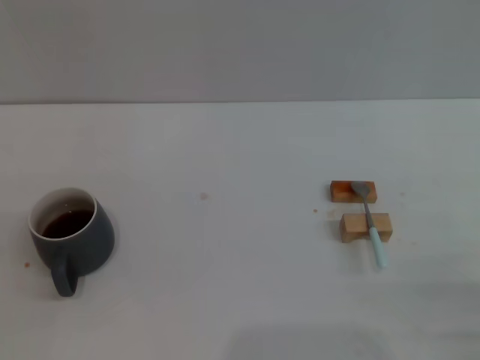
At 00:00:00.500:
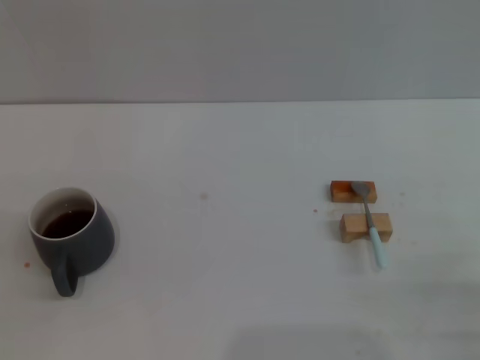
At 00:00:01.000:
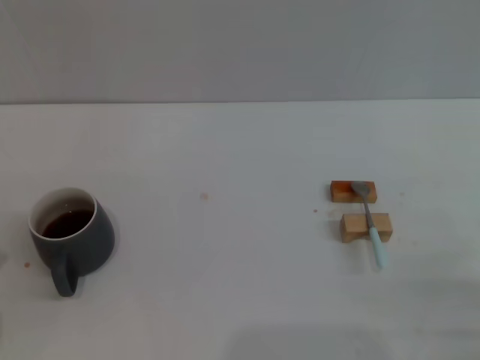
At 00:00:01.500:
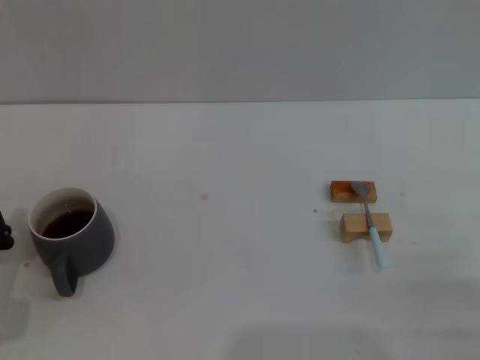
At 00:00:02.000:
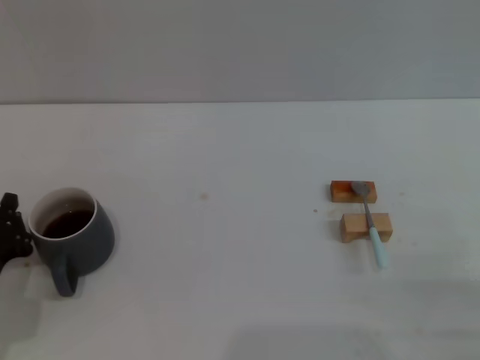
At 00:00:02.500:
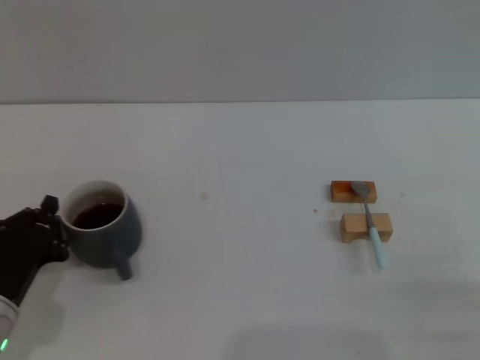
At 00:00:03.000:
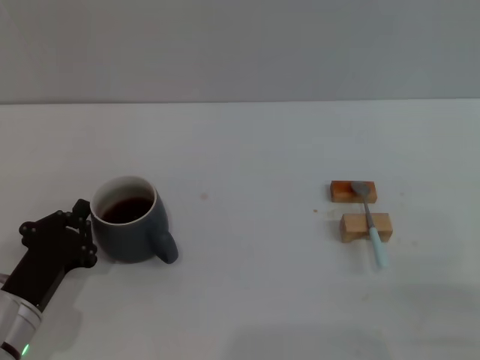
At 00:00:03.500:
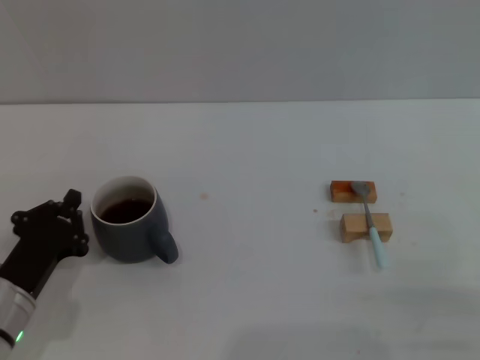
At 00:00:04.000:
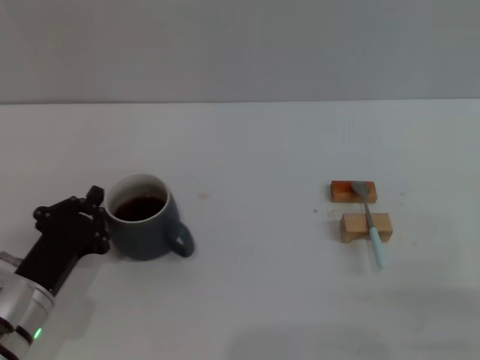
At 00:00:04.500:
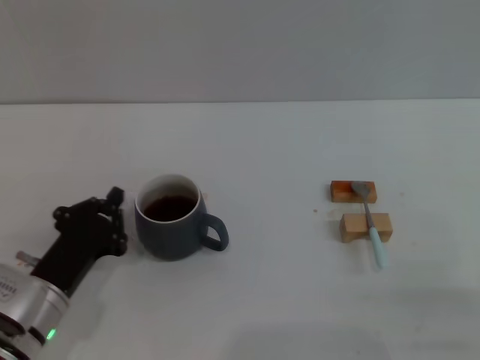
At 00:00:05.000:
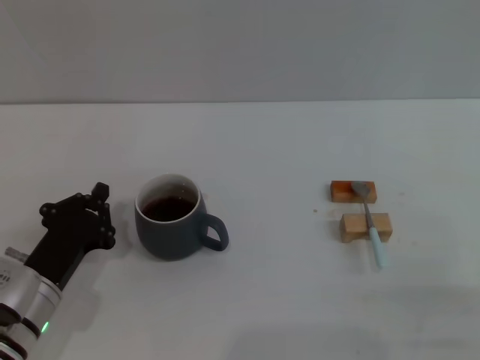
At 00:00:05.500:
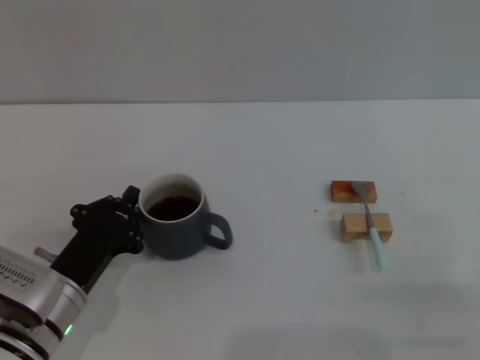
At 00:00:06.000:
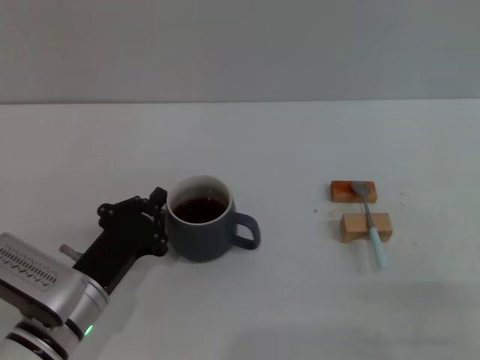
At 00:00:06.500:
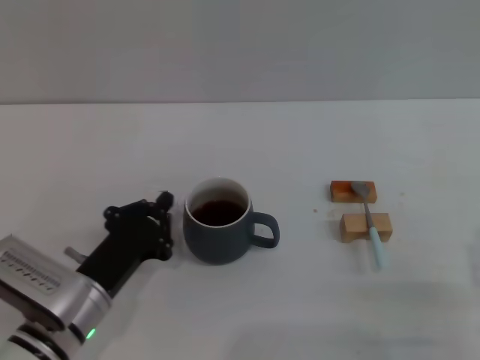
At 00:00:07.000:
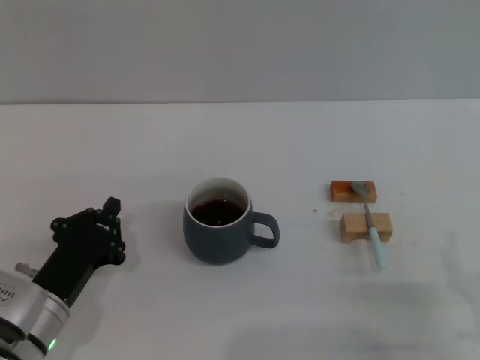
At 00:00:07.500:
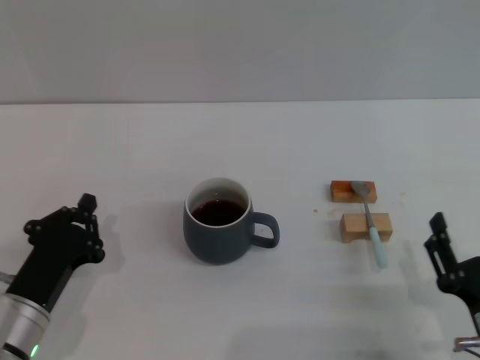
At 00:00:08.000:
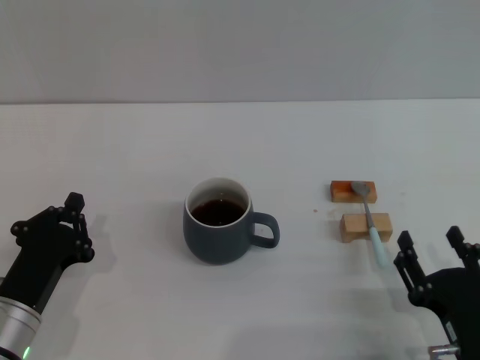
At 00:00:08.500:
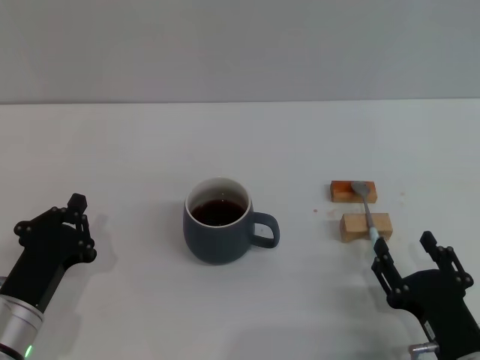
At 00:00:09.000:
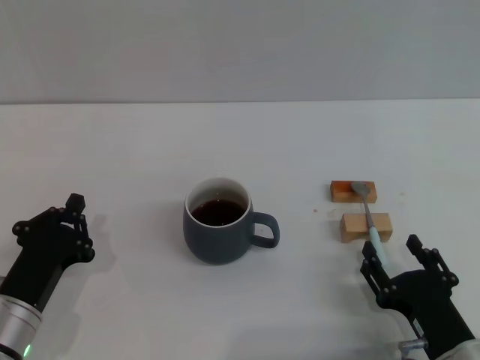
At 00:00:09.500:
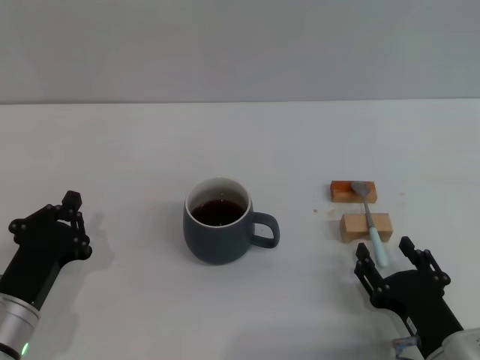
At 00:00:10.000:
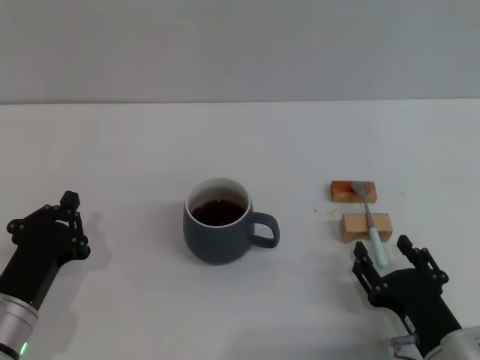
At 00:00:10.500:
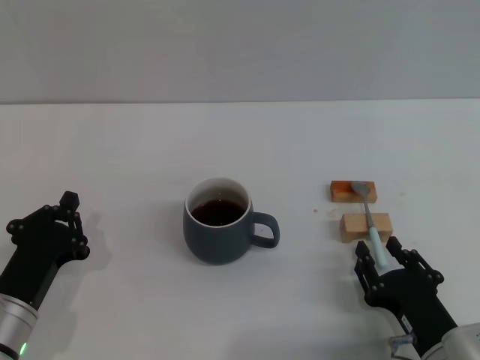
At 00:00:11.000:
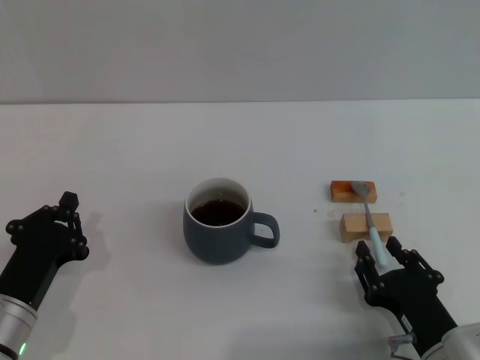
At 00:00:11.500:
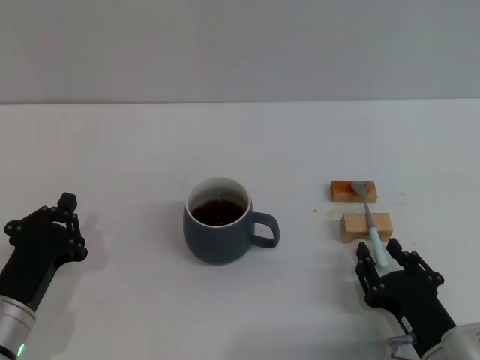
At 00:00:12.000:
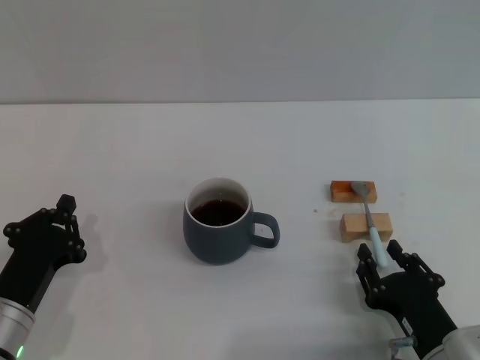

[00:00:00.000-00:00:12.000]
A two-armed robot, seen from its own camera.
Task of the whole recording: Move the grey cup to the center, lift the blue spoon, stir it three times in the cup, and put the spoon into the cup.
Step, 00:00:00.000 to 00:00:06.000: Move the cup with coffee to the center of view with the left gripper.
00:00:00.000 to 00:00:02.000: The left gripper is displaced forward by about 5 cm.
00:00:02.000 to 00:00:04.000: The left gripper shifts roughly 5 cm to the right.
00:00:04.000 to 00:00:06.000: The grippers make only small movements.
00:00:06.000 to 00:00:08.000: The right gripper heads to the left, covering some 5 cm, while the left gripper changes place by about 5 cm.
00:00:08.000 to 00:00:10.000: The grippers move only a little.
00:00:10.000 to 00:00:12.000: The right gripper closes up.

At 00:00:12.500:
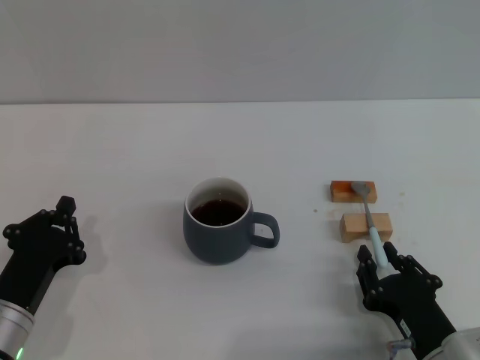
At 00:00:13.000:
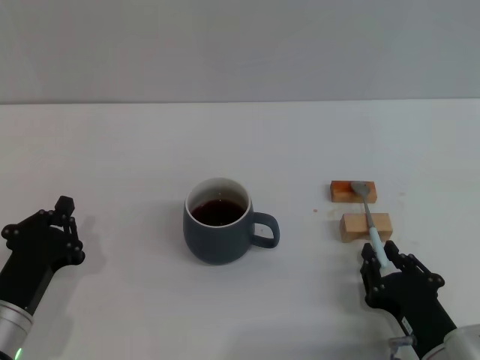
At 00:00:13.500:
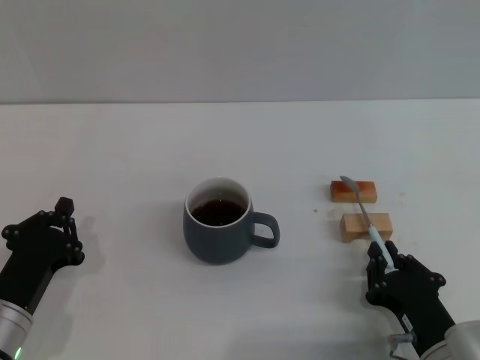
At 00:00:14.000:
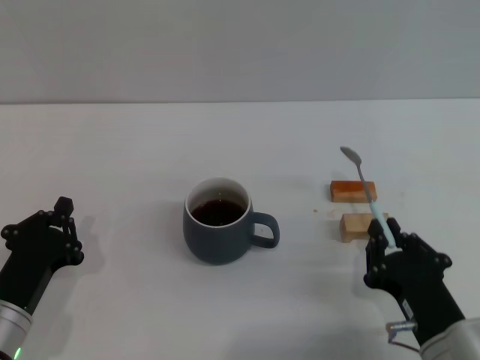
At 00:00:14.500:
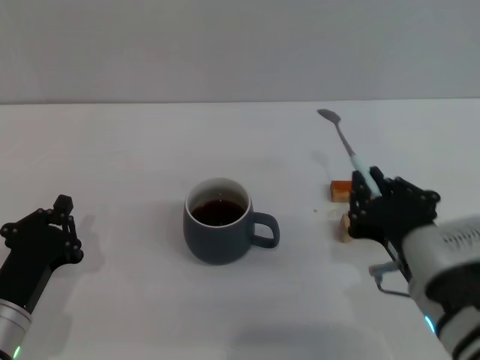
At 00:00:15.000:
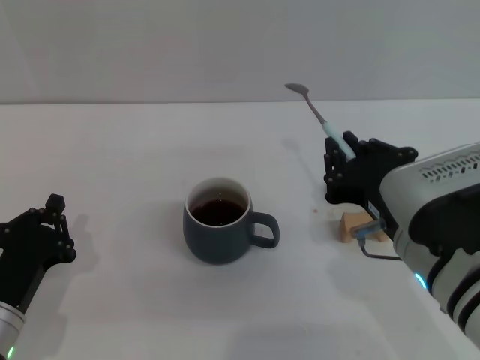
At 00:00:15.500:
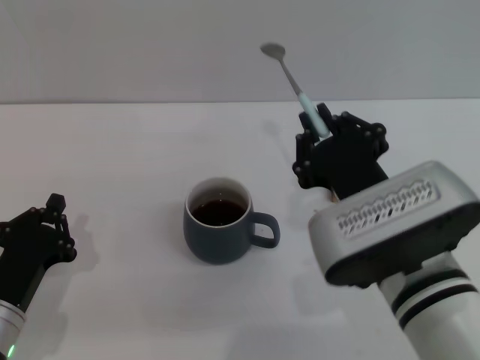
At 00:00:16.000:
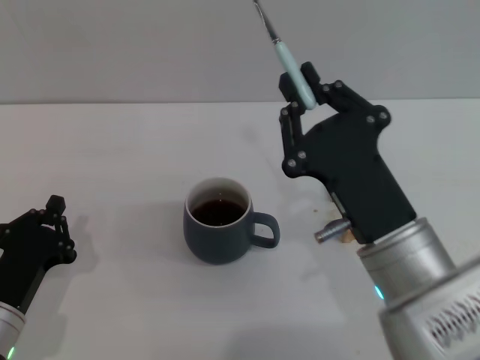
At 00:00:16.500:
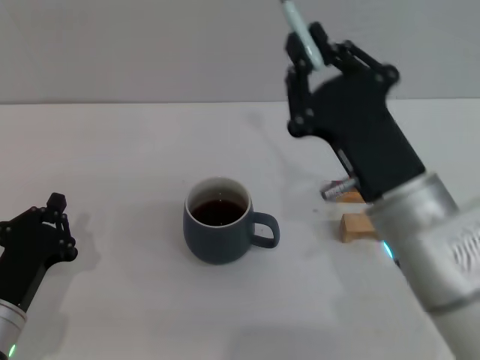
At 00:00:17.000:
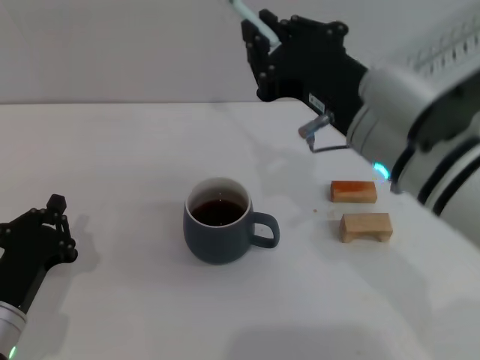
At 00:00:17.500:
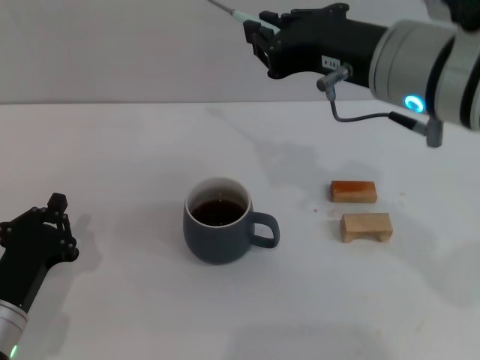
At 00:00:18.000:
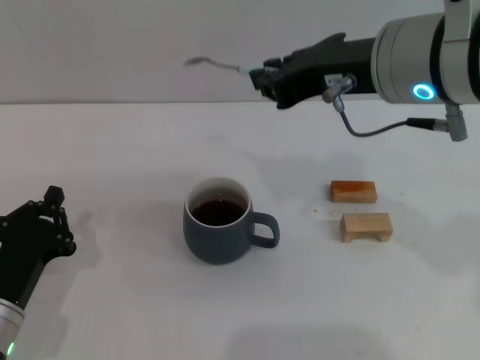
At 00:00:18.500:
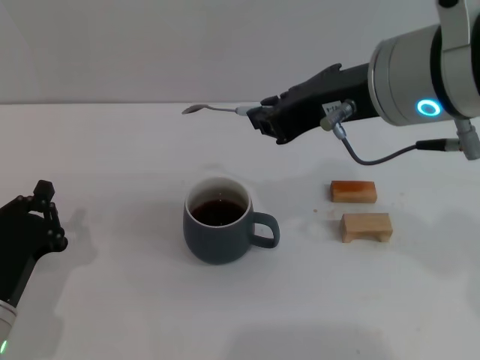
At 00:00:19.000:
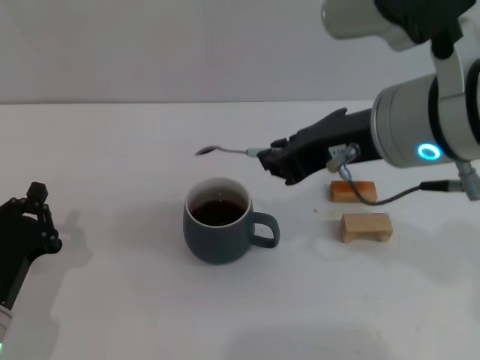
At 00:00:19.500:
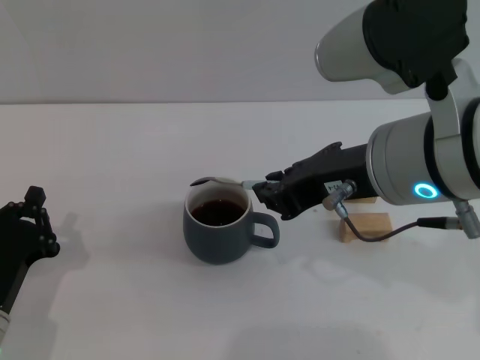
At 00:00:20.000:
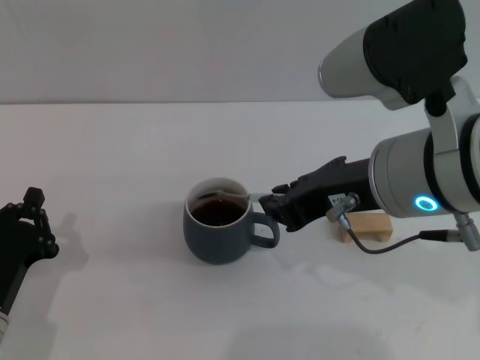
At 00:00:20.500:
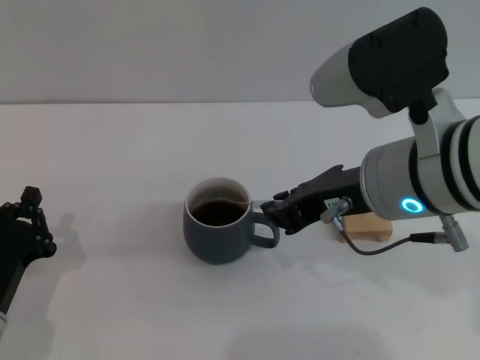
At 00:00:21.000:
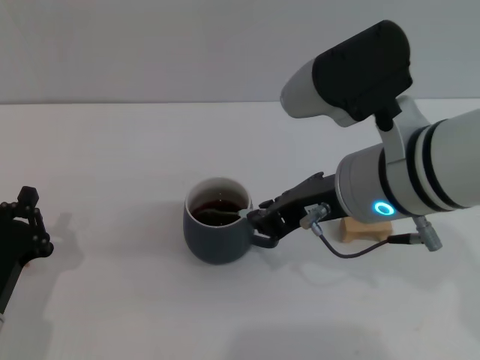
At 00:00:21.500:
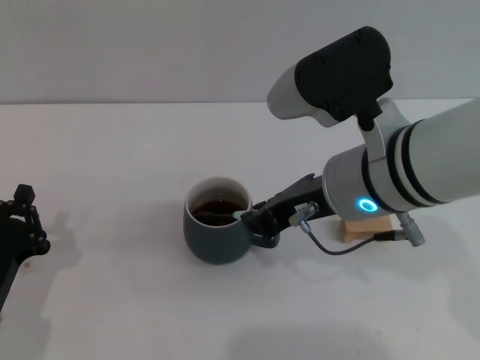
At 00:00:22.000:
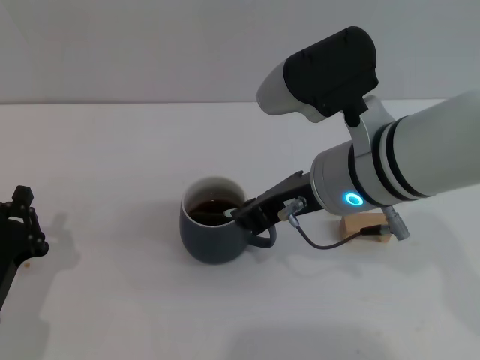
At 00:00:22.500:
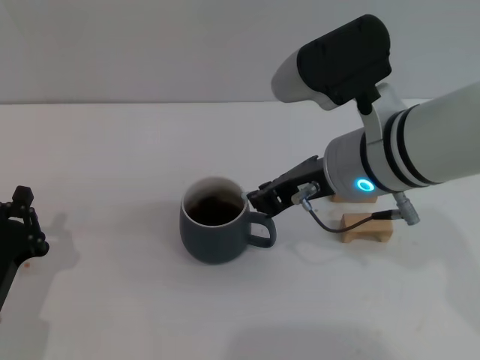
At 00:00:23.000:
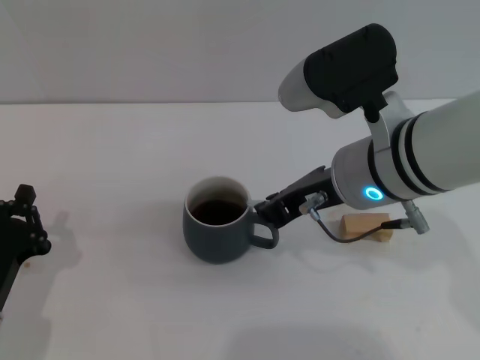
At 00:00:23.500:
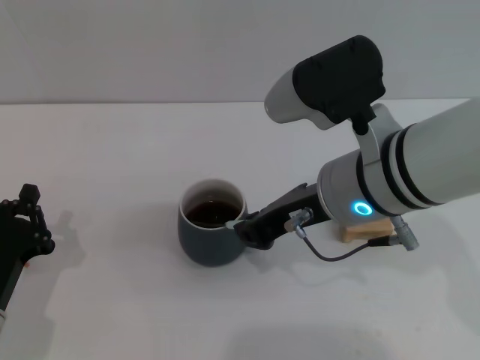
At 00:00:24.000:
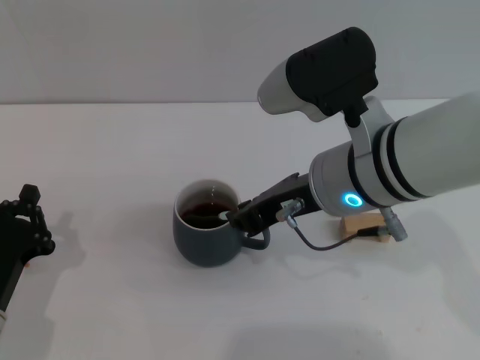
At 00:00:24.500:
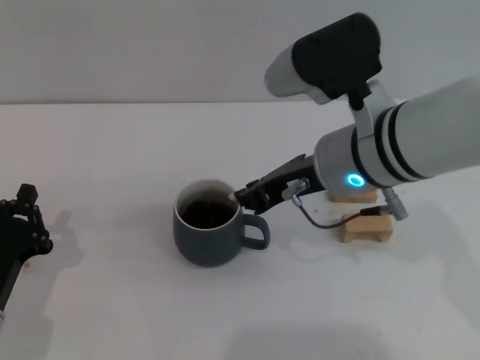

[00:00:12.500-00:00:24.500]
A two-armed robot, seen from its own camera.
Task of the whole recording: Move the grey cup to the center, lift the blue spoon, stir it three times in the cup, and put the spoon into the cup.
00:00:12.500 to 00:00:14.500: The right gripper travels upward by about 10 cm, and closes.
00:00:14.500 to 00:00:16.500: The right gripper changes place by about 5 cm.
00:00:16.500 to 00:00:18.500: The right gripper shifts about 15 cm upward.
00:00:18.500 to 00:00:20.500: The right gripper travels downward by some 5 cm.
00:00:20.500 to 00:00:22.500: The right gripper shifts by approximately 5 cm.
00:00:22.500 to 00:00:24.500: The grippers make only small movements.

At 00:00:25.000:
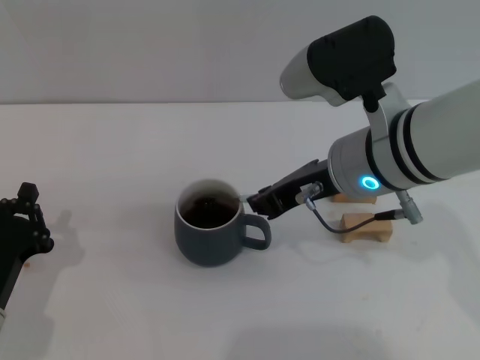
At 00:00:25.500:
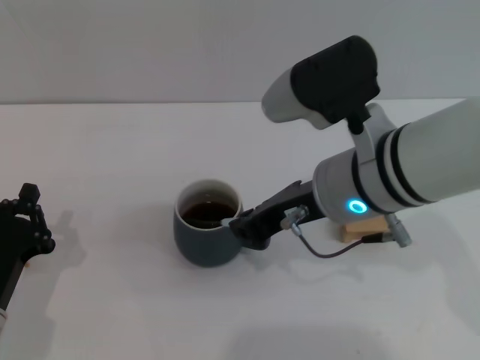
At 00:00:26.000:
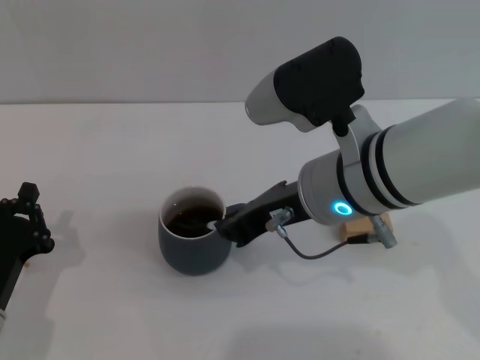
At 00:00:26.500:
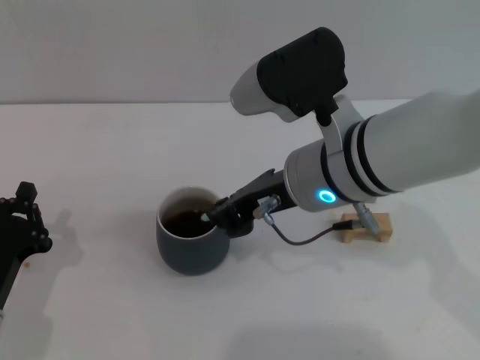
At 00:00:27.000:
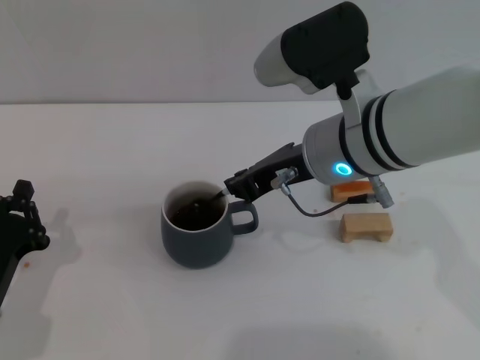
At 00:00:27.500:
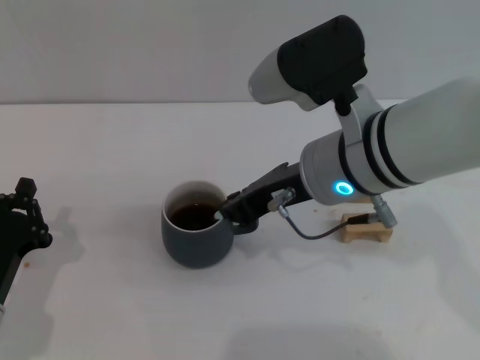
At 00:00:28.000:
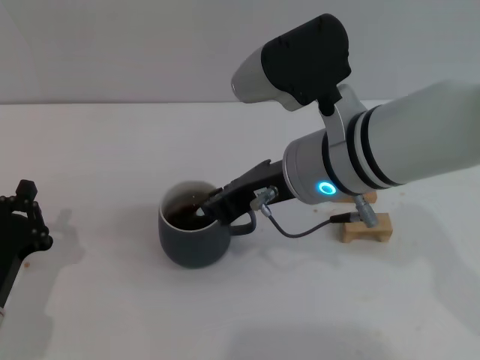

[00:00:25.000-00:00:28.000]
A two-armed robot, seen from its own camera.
Task of the whole recording: Move the grey cup to the center, lift the blue spoon, stir it three times in the cup, and put the spoon into the cup.
00:00:25.000 to 00:00:28.000: The grippers make only small movements.
